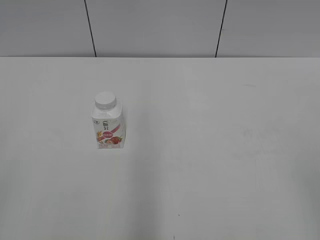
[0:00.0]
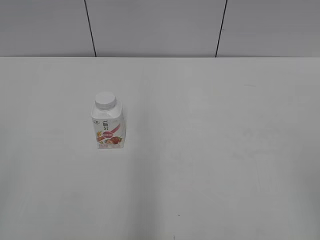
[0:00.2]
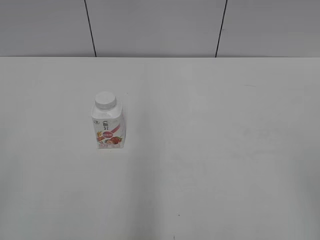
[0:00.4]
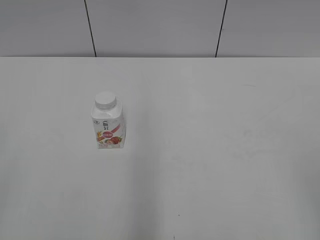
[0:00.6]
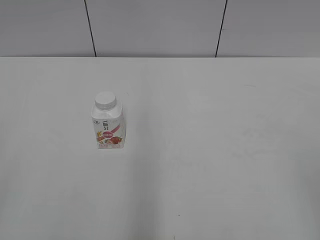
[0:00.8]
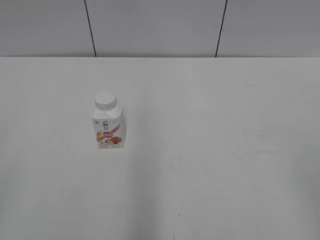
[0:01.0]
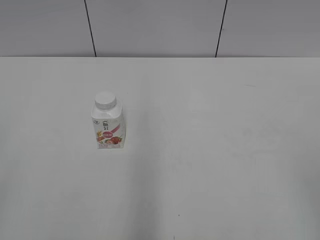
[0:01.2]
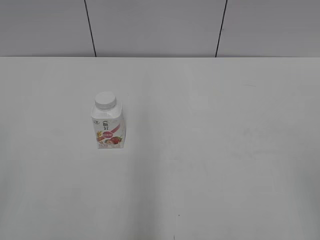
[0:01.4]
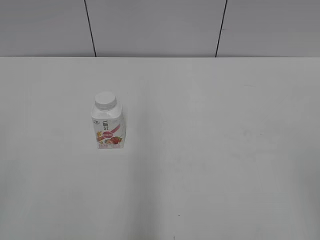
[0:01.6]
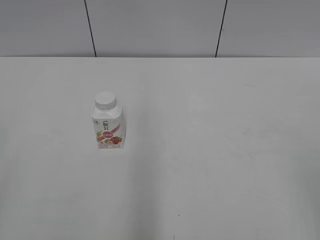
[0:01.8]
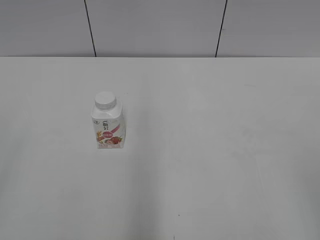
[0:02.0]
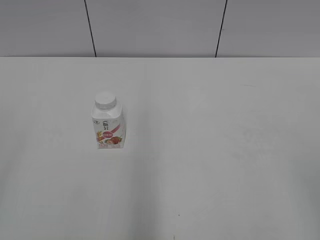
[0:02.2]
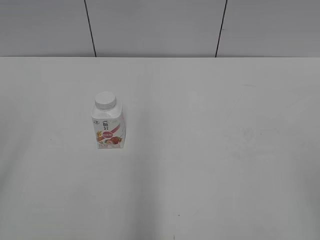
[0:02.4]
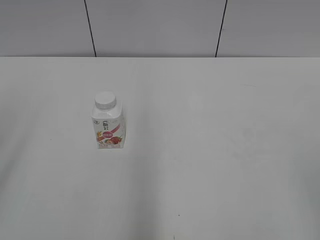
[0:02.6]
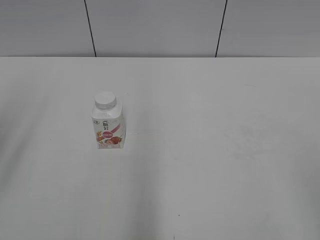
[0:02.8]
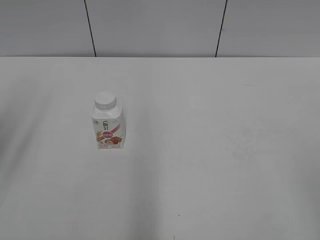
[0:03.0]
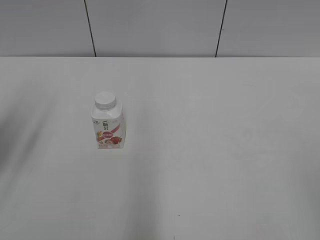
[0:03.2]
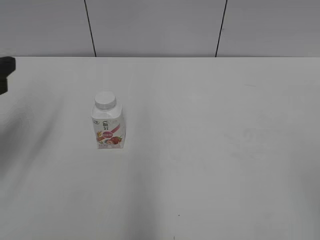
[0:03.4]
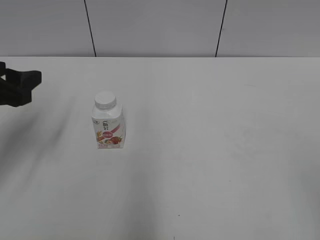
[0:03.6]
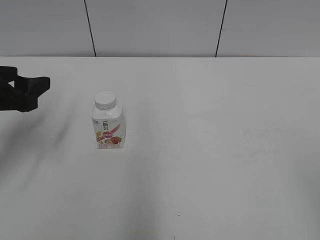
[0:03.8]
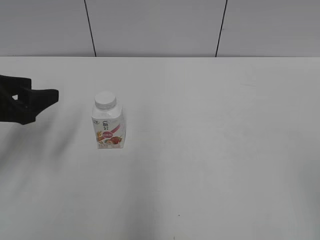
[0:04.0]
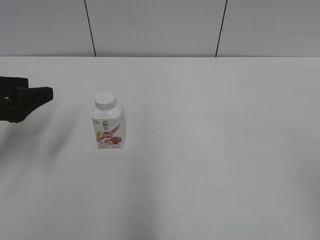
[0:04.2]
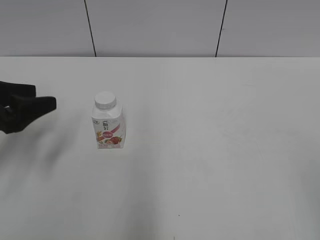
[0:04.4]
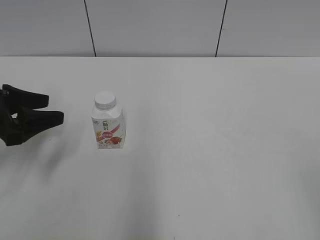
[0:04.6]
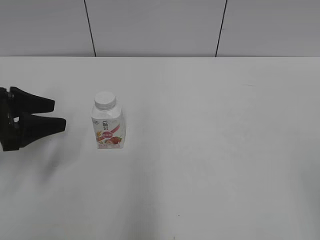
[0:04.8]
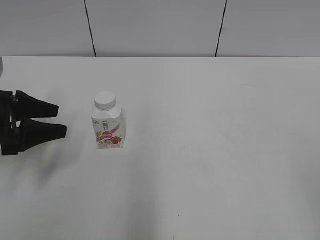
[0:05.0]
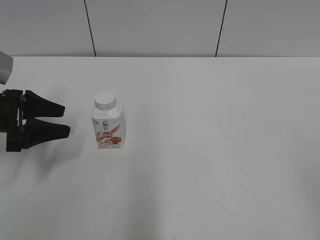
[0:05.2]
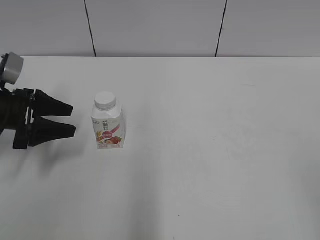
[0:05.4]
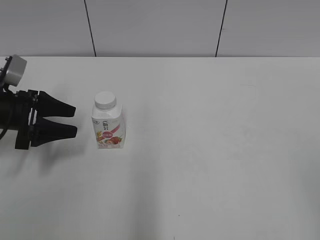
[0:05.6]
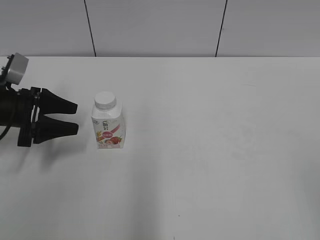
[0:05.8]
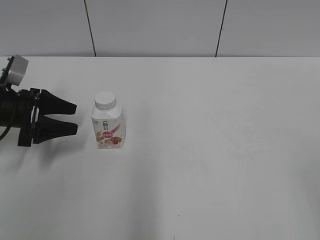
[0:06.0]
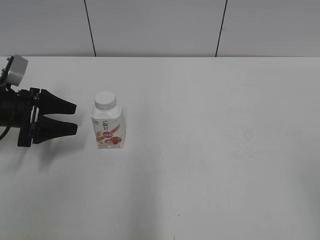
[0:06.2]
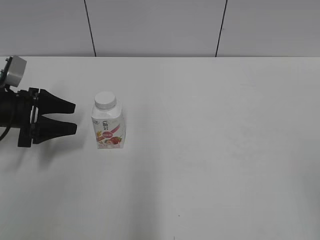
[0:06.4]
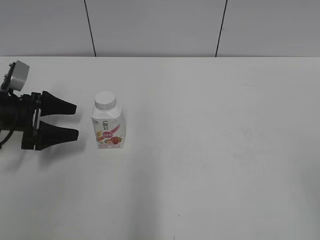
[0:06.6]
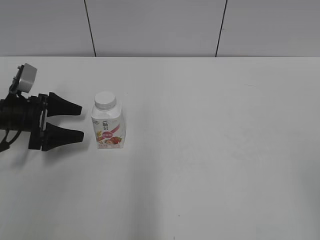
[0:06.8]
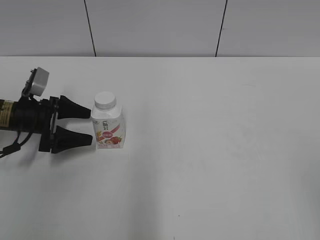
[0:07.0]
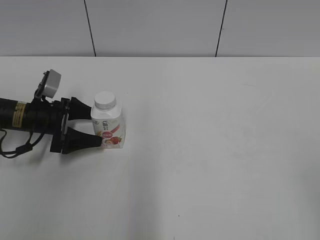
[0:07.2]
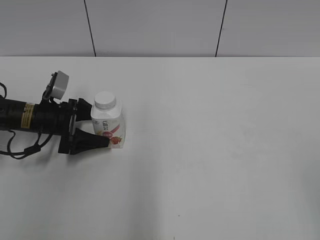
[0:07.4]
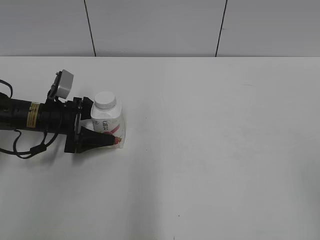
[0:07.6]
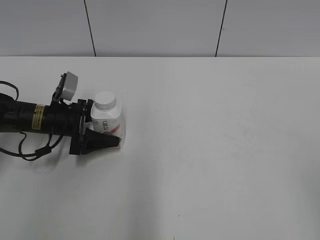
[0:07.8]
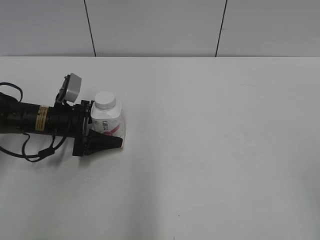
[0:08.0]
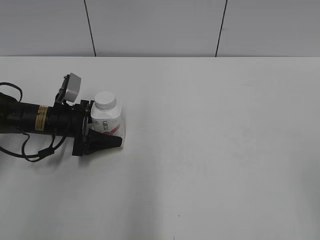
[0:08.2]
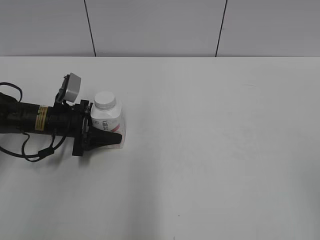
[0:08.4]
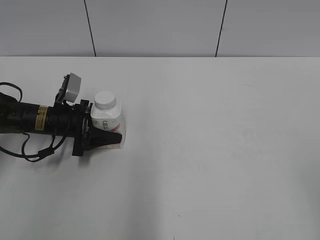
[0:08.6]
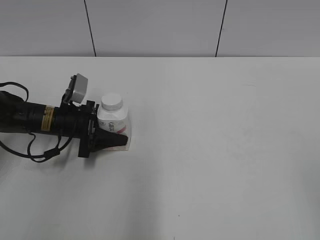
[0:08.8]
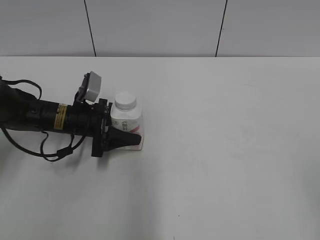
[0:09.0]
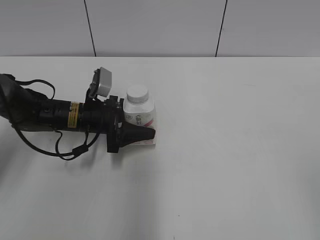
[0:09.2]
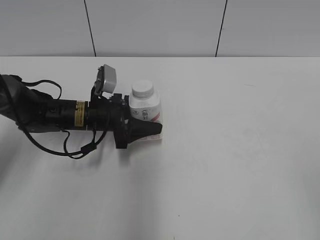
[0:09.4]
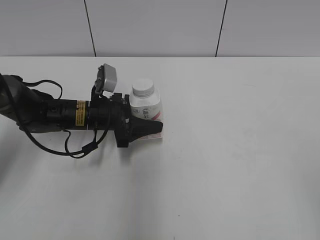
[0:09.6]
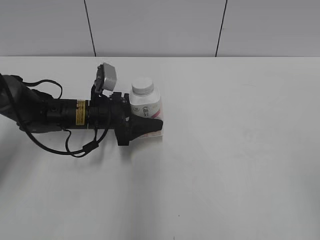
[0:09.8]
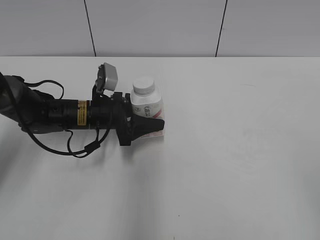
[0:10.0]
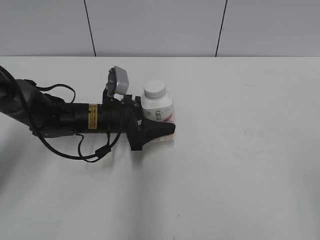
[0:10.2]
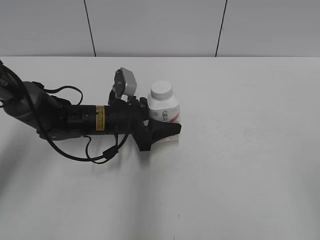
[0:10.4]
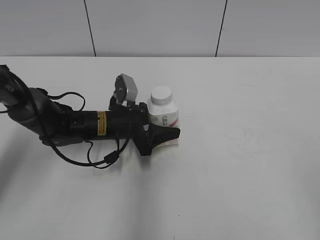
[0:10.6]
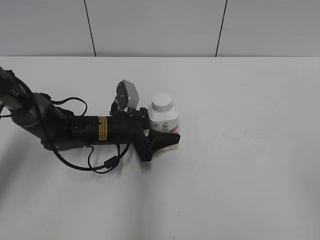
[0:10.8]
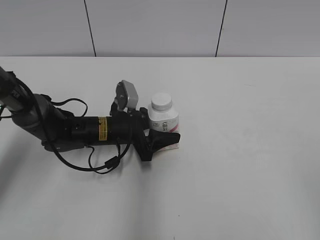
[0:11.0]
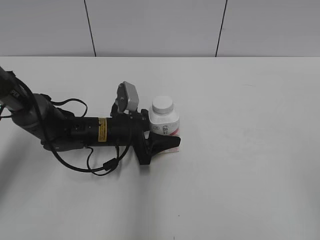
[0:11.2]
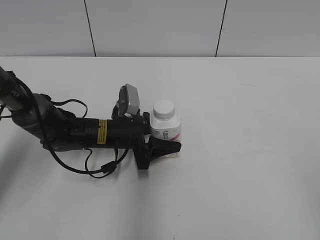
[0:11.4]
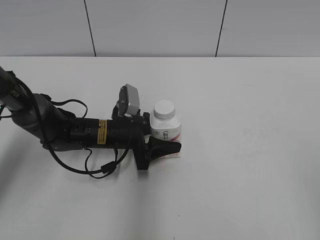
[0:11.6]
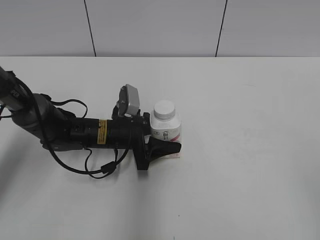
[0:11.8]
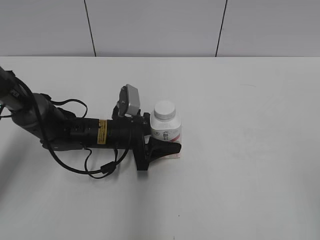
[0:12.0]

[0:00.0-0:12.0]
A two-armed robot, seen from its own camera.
Step, 0:00.0 to 0:08.4: Grab the Yili Changqing with the left hand.
0:01.6 to 0:03.0: The left gripper heads forward, covering about 15 cm.
0:03.0 to 0:04.4: The left gripper is displaced downward and forward by some 15 cm.
0:04.4 to 0:06.0: The left gripper is displaced forward and downward by about 10 cm.
0:06.0 to 0:07.6: The left gripper heads to the right and downward, covering some 10 cm, and opens.
0:07.6 to 0:09.0: The left gripper travels to the right by some 5 cm, and closes up.
0:09.0 to 0:10.4: The left gripper is displaced to the right by approximately 10 cm.
0:10.4 to 0:12.0: The grippers move only a little.

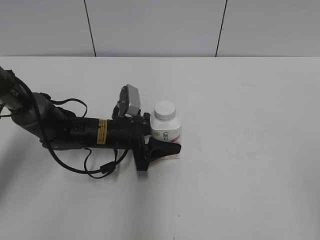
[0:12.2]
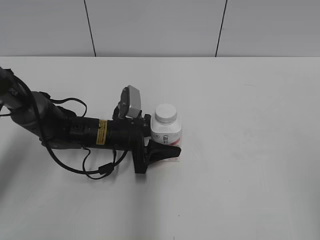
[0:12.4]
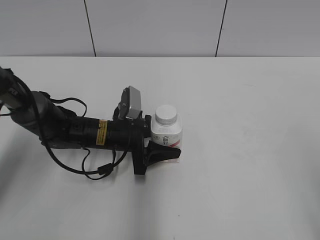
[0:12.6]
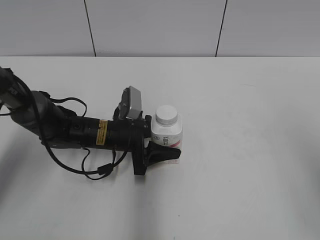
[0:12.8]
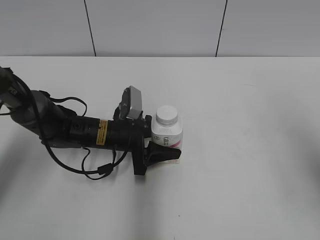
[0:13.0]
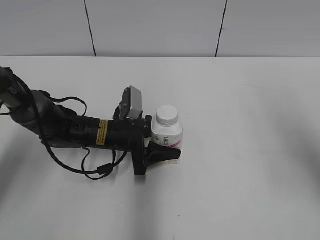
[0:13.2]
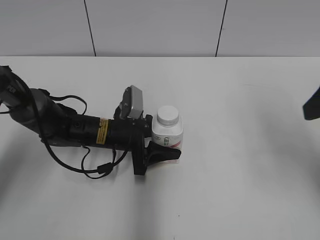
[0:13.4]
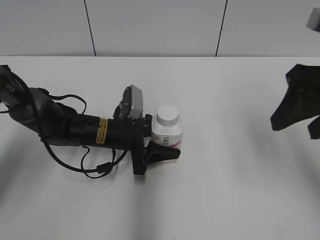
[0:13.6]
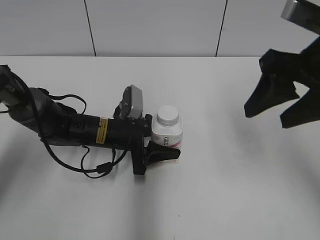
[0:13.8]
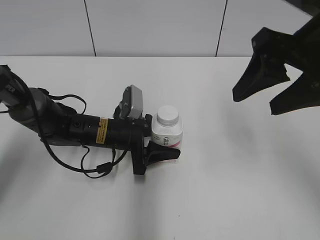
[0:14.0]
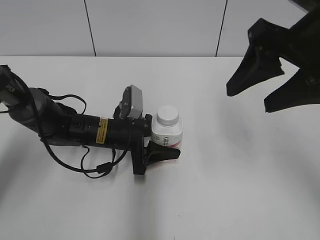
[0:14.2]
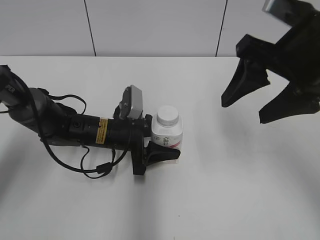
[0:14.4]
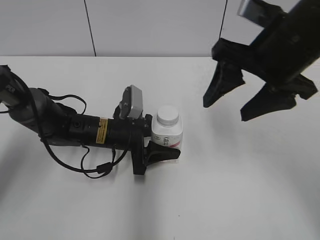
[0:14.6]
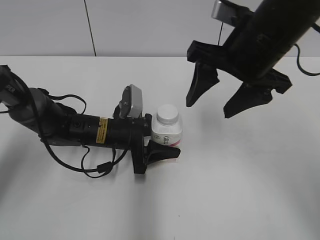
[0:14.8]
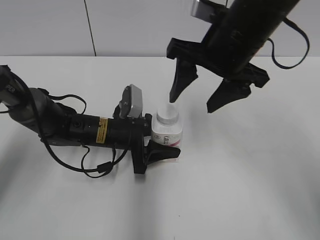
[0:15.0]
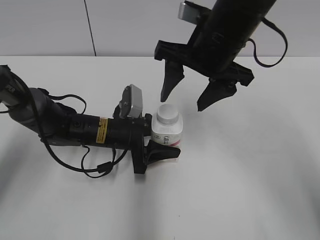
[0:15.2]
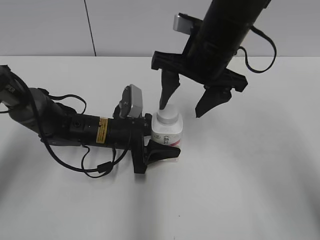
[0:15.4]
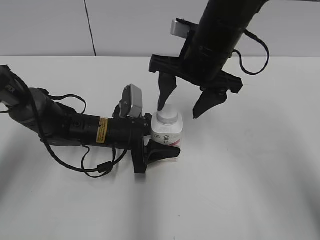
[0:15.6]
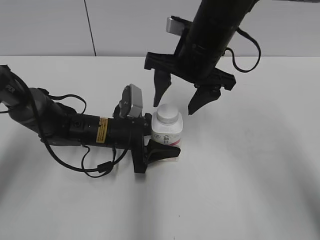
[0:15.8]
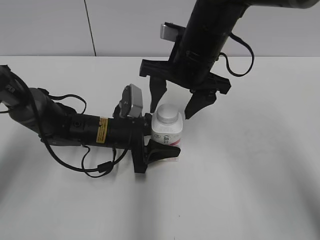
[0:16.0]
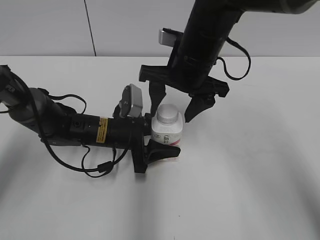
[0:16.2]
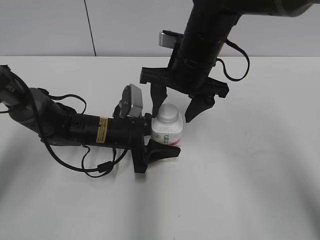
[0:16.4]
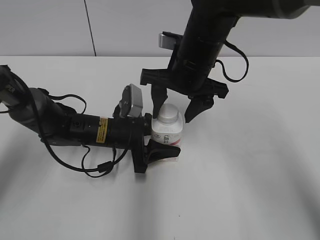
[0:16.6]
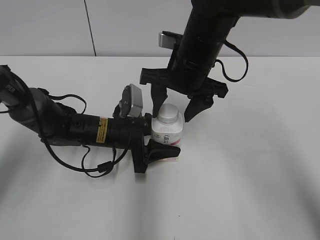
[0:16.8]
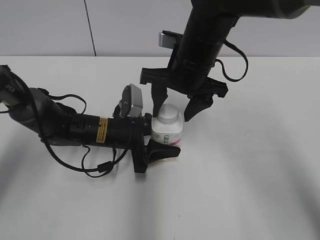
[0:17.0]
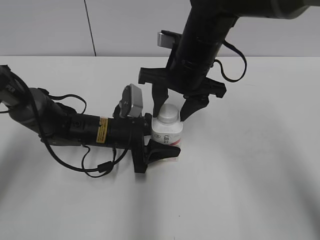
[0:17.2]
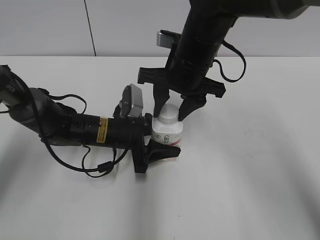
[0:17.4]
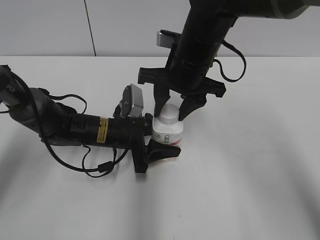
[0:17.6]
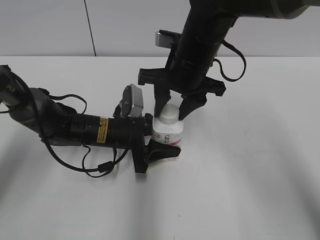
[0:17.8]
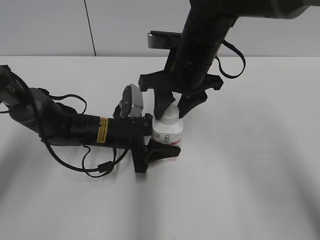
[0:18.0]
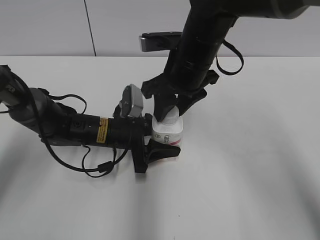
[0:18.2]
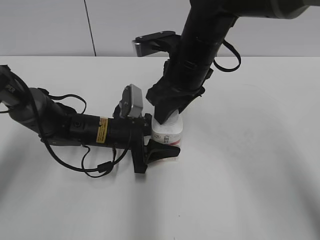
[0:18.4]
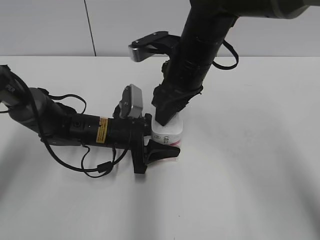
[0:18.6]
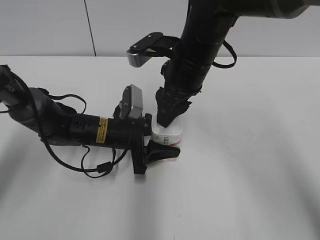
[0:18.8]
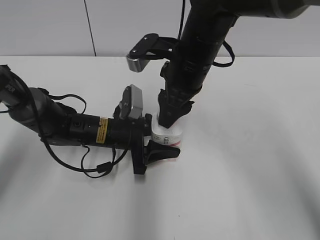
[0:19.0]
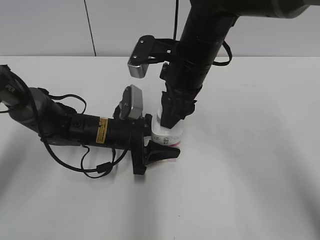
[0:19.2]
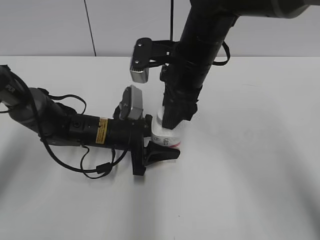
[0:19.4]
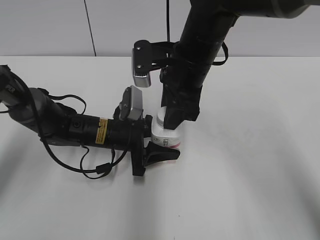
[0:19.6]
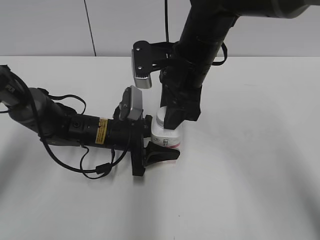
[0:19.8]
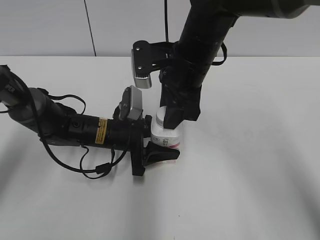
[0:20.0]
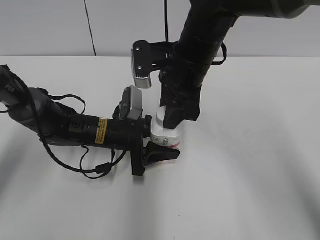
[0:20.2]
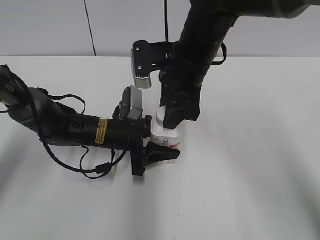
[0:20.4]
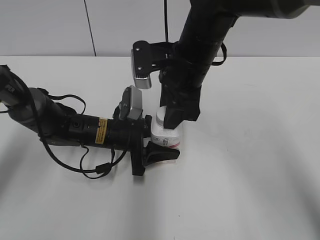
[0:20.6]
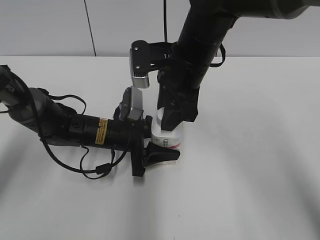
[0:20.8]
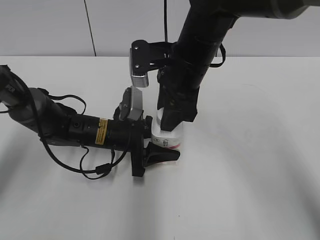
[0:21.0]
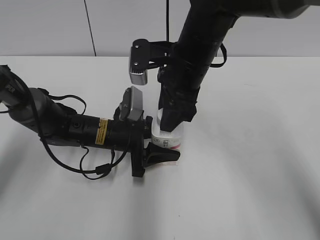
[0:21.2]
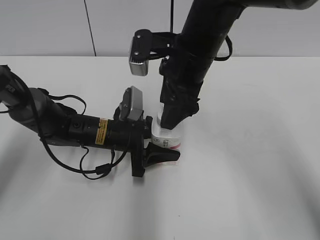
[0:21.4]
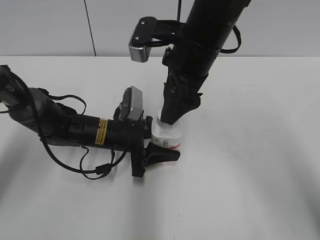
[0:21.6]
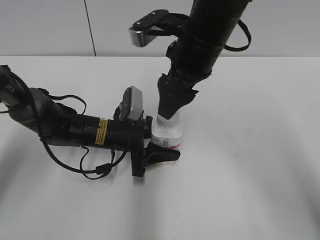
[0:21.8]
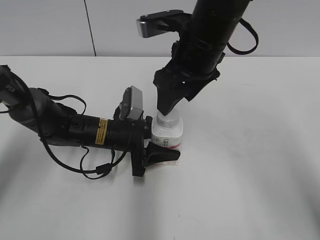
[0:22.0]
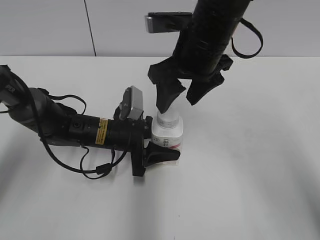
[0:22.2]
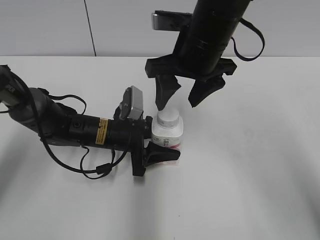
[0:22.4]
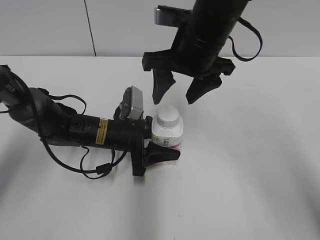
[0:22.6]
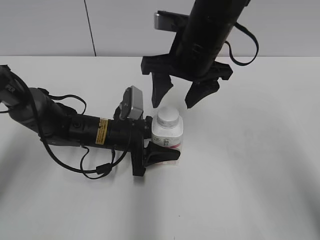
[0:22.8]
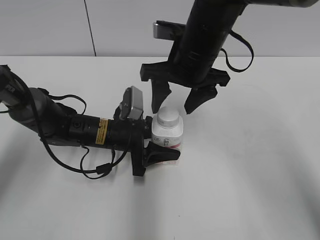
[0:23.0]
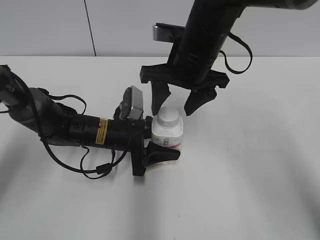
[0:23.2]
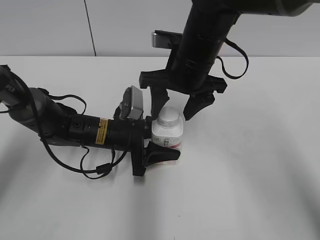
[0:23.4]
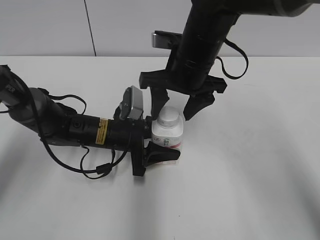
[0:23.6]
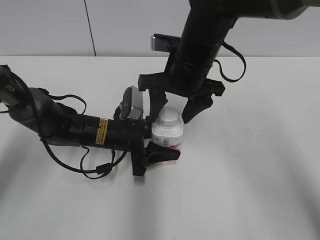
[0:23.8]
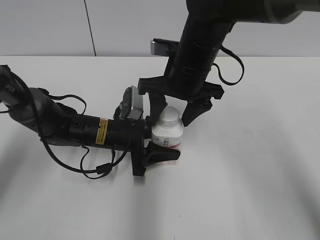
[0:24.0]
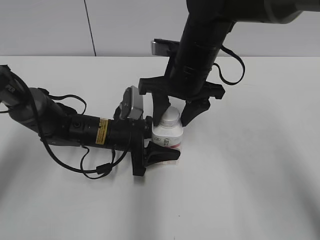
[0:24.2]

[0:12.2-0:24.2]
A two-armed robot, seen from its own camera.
0:12.2 to 0:13.8: The right gripper moves forward and to the left, roughly 25 cm.
0:13.8 to 0:15.2: The right gripper is displaced to the left and forward by approximately 15 cm.
0:15.2 to 0:16.6: The right gripper heads downward, covering approximately 5 cm.
0:16.6 to 0:18.2: The right gripper closes.
0:19.8 to 0:21.2: The two grippers keep their place.
0:21.2 to 0:22.6: The right gripper opens.
0:22.6 to 0:24.2: The right gripper shifts by about 5 cm, and closes up.
